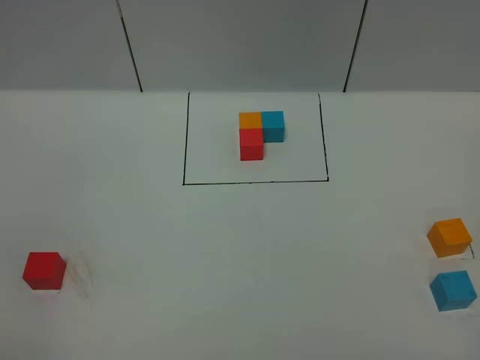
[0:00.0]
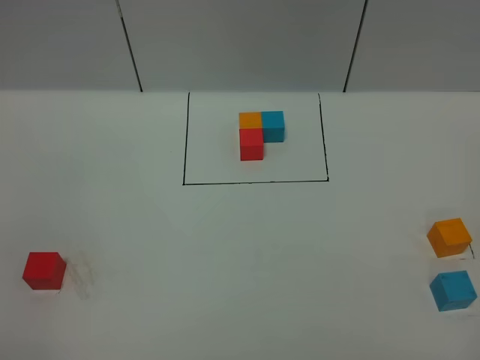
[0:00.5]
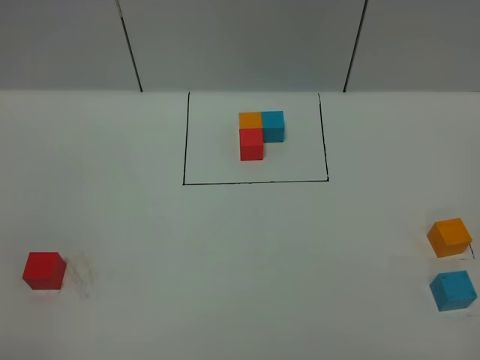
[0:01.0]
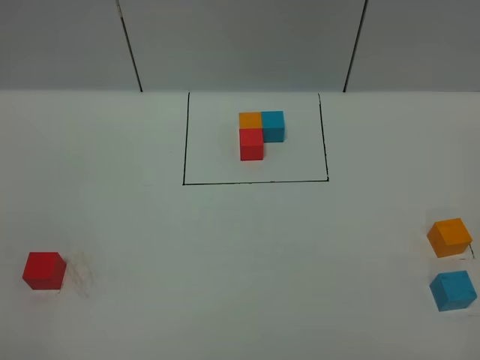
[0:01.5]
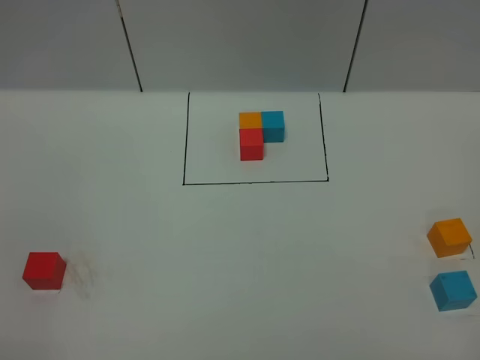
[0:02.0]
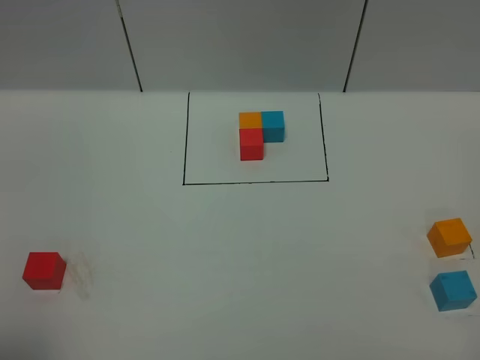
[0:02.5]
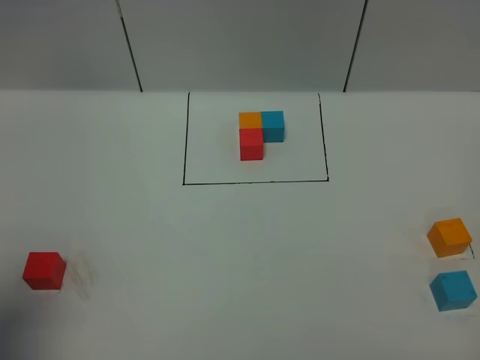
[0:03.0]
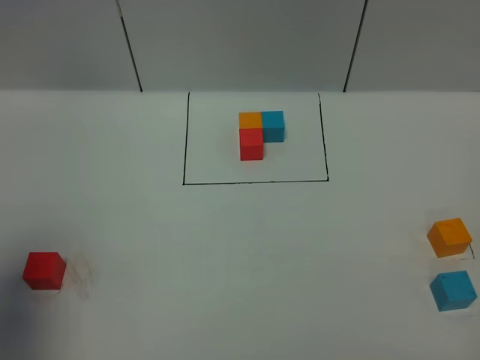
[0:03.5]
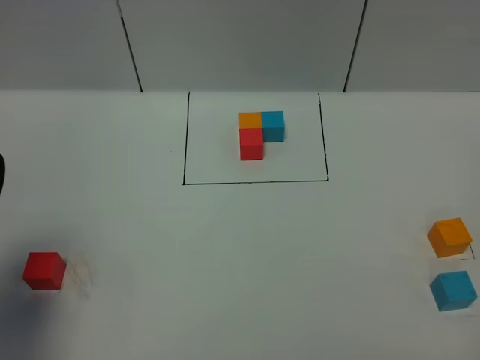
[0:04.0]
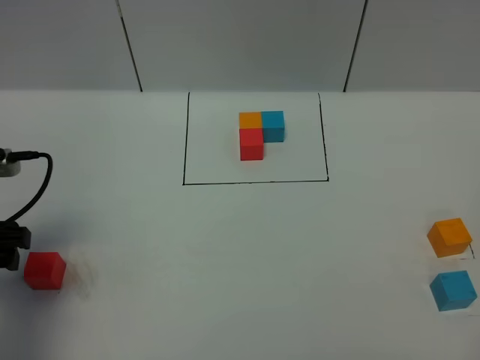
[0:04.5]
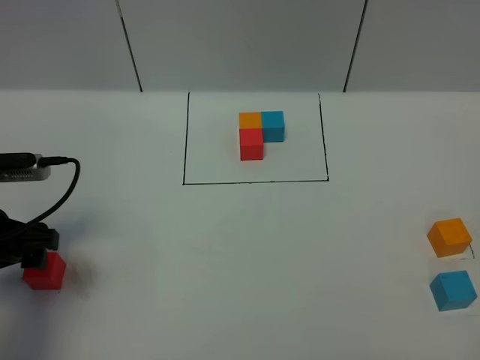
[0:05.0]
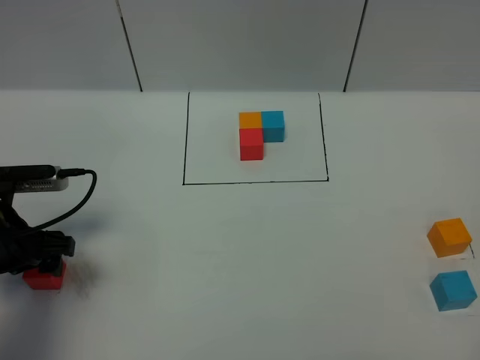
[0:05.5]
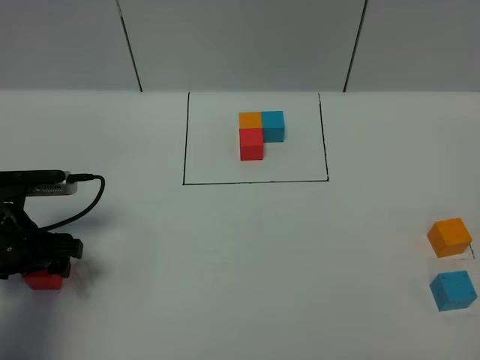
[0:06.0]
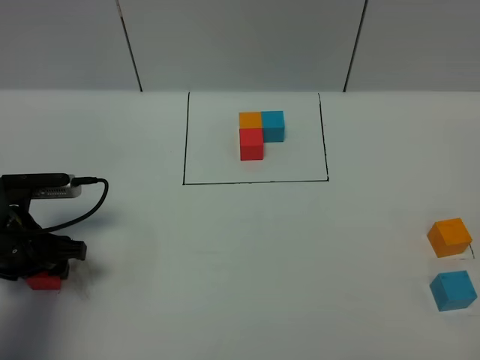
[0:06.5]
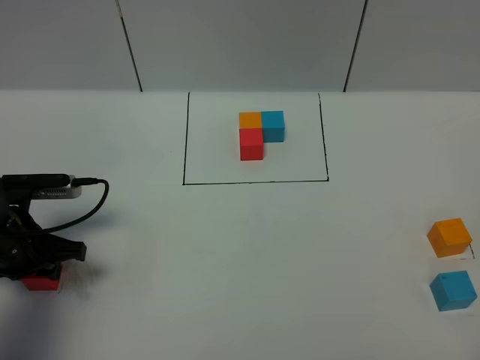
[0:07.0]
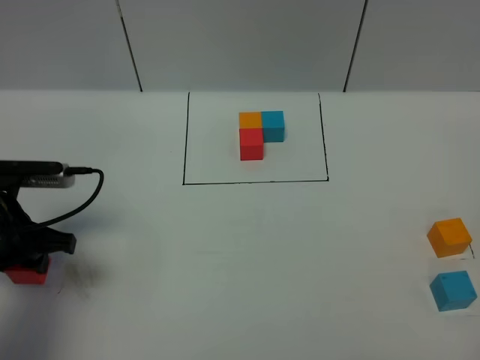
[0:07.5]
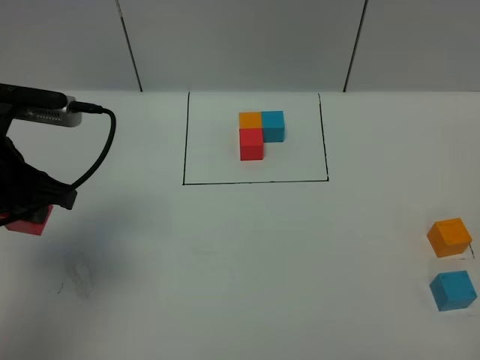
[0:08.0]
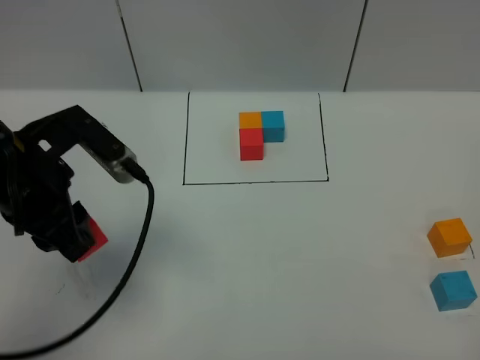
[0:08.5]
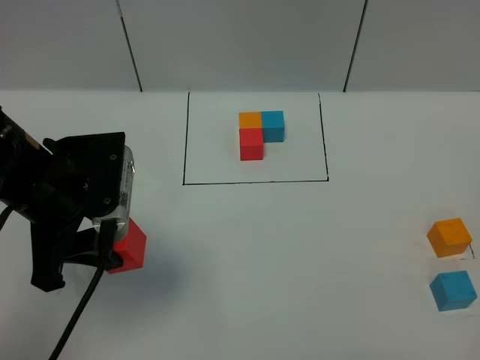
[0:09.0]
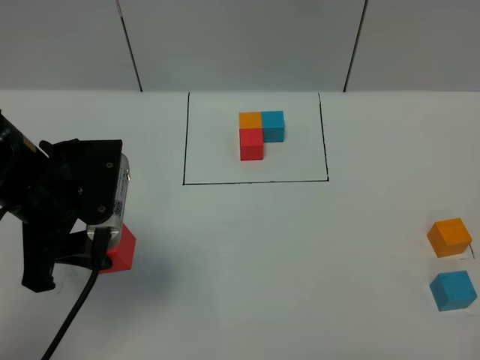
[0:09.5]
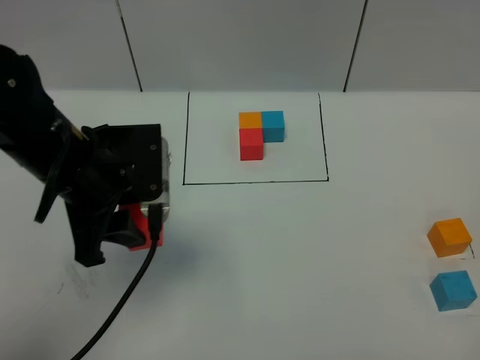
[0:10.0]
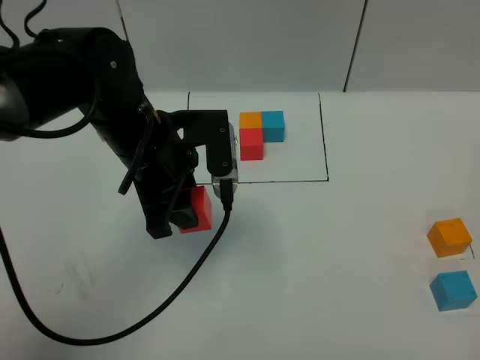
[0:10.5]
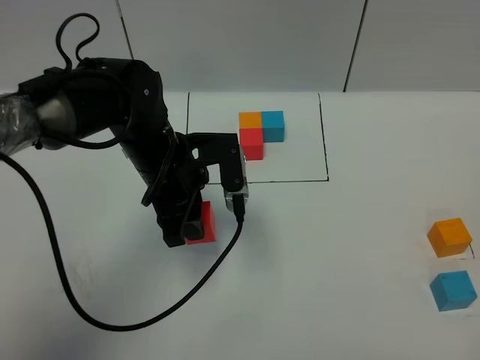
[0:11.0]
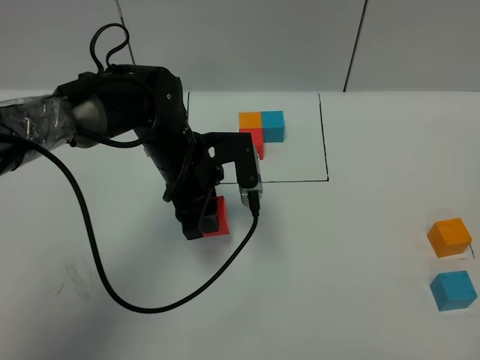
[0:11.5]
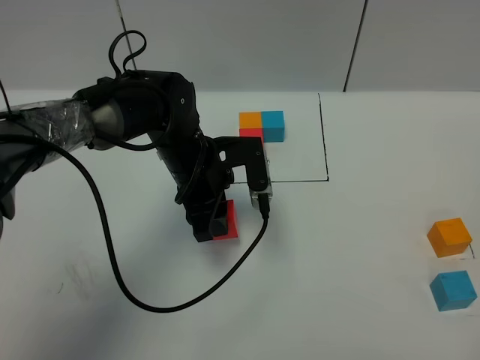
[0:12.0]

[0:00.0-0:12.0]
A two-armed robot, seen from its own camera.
Task of the whole recording: According to the building block template in front, assemble the scattered blocks together.
0:02.0 to 0:04.0: The left gripper moves forward, some 20 cm.
0:04.0 to 0:06.0: The left gripper heads downward and forward, covering roughly 15 cm.
0:06.0 to 0:08.0: The left gripper is displaced upward by about 15 cm, and closes.
0:08.0 to 0:10.0: The left gripper heads to the right, covering some 10 cm.
0:10.0 to 0:12.0: The left gripper heads downward, to the right and forward, covering approximately 15 cm.

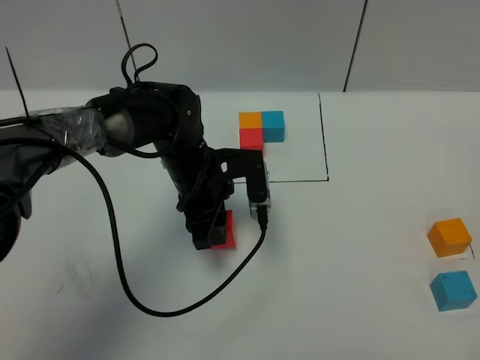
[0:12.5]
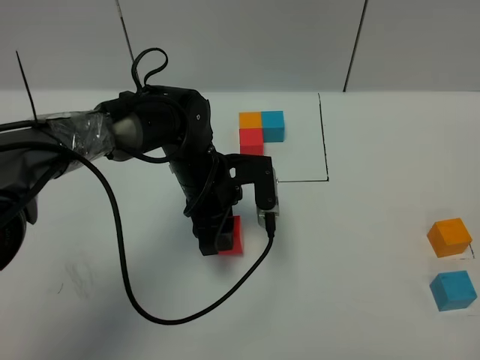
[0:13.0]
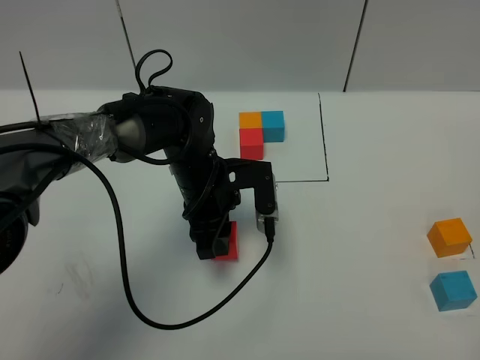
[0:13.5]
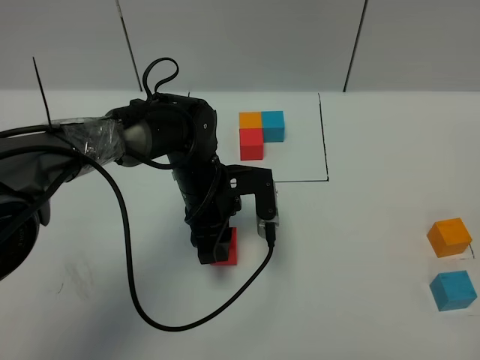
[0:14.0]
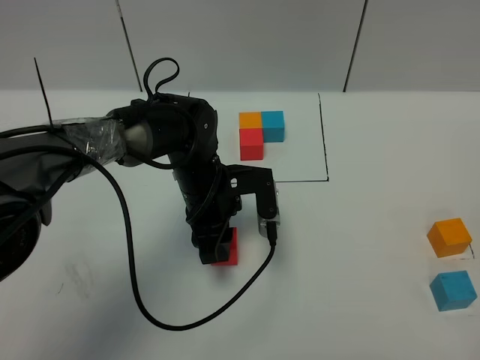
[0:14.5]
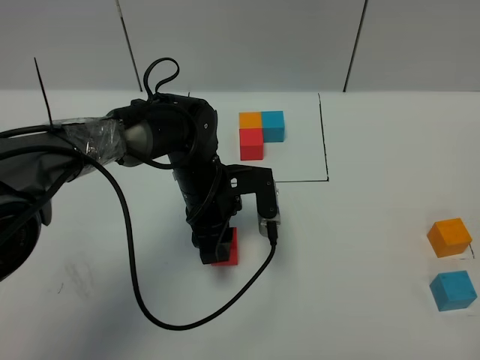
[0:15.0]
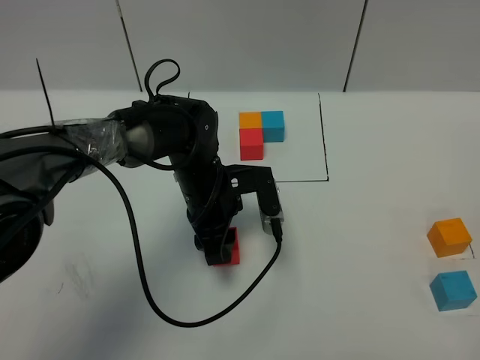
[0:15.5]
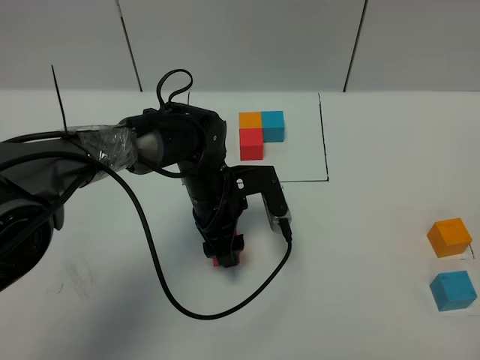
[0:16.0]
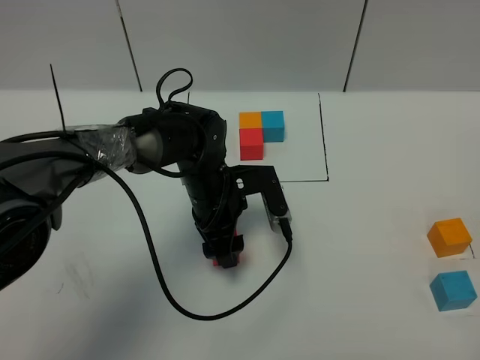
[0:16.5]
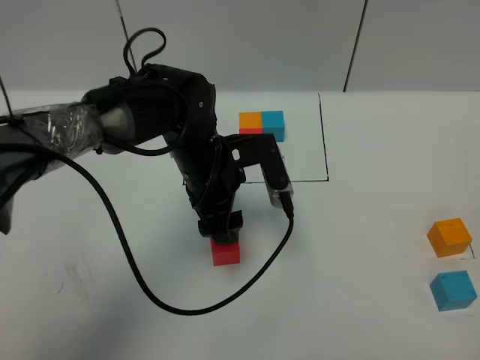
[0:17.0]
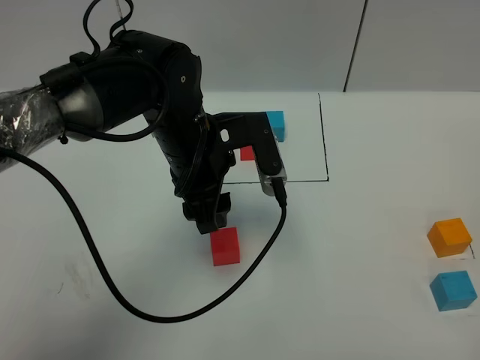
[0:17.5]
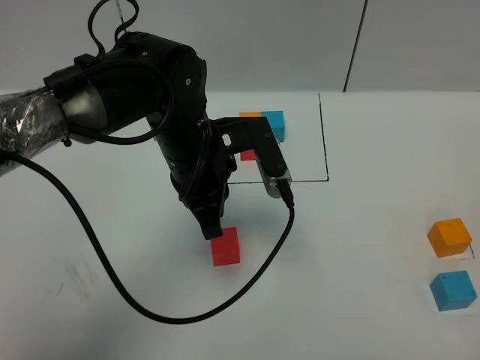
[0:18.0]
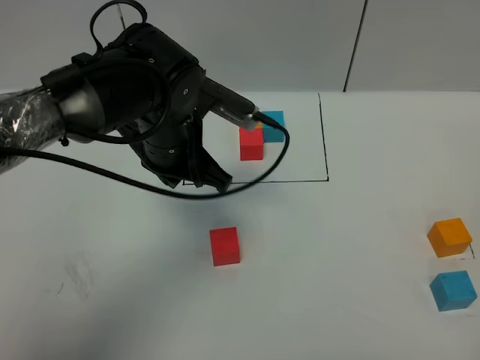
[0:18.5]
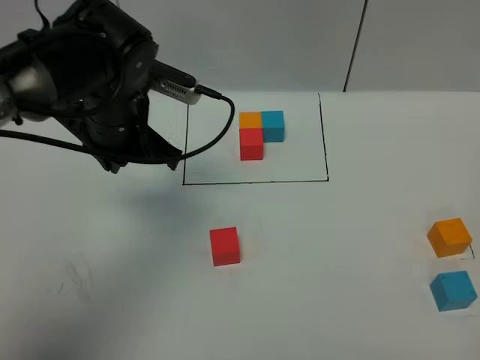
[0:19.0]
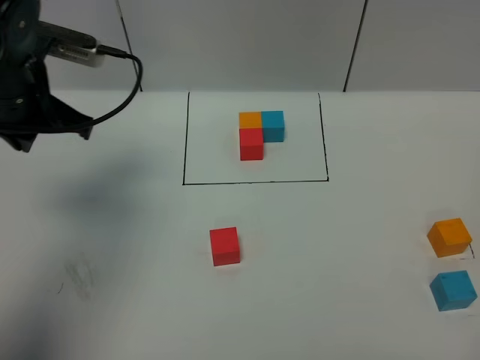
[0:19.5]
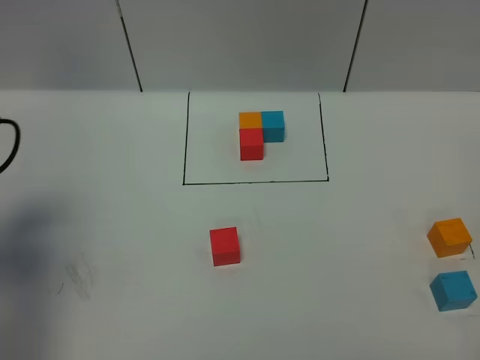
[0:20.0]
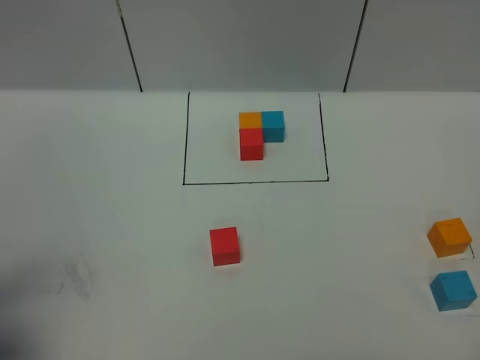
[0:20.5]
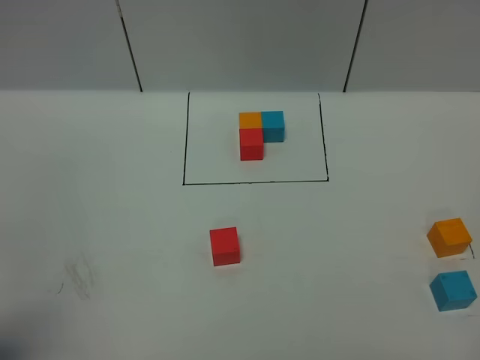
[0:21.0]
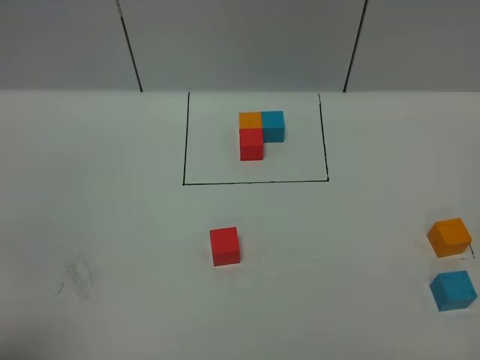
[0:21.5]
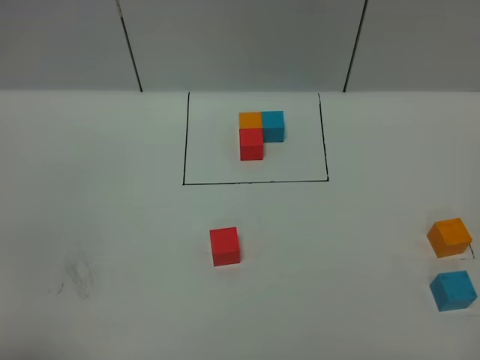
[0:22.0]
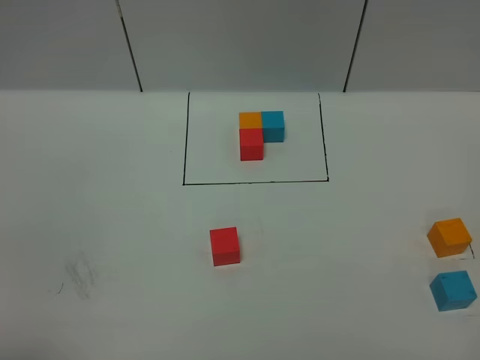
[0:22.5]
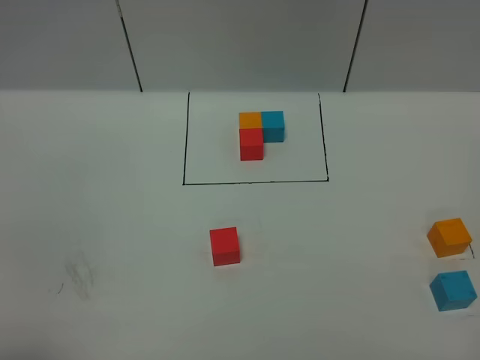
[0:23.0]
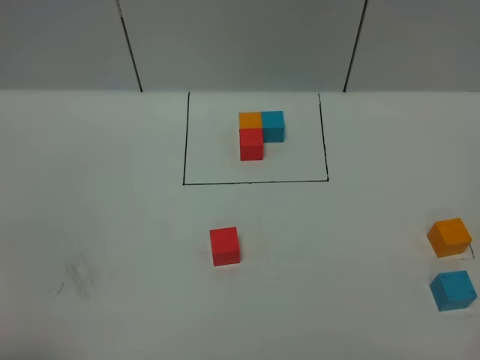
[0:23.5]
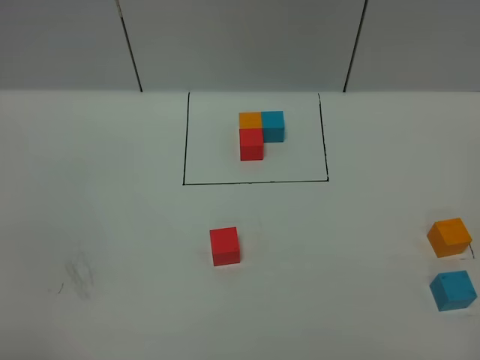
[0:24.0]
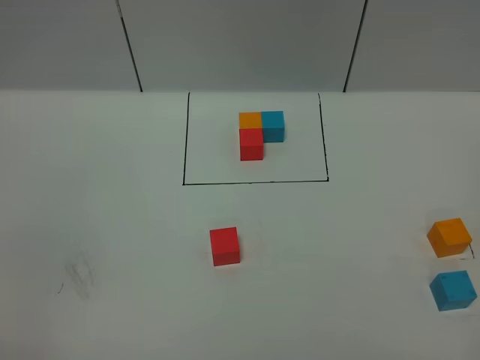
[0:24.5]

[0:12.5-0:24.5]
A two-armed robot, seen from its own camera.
Task of the whole recording: According to the building block template in front, assemble the scattered blocks together.
Step, 0:12.5 to 0:18.5: Put the red cube in the center of the table.
0:12.5 to 0:14.5: There are only small adjustments of the grippers.
0:14.5 to 0:16.5: The left gripper opens up.
0:16.5 to 0:18.5: The left gripper shifts some 10 cm upward, and closes its fingers.
0:18.5 to 0:20.5: The left gripper is displaced to the left and backward by about 35 cm.
0:20.5 to 0:22.5: The left gripper goes some 10 cm backward.

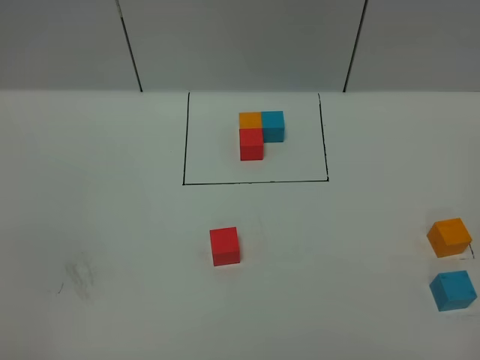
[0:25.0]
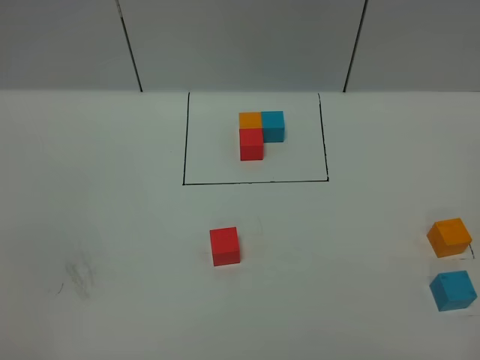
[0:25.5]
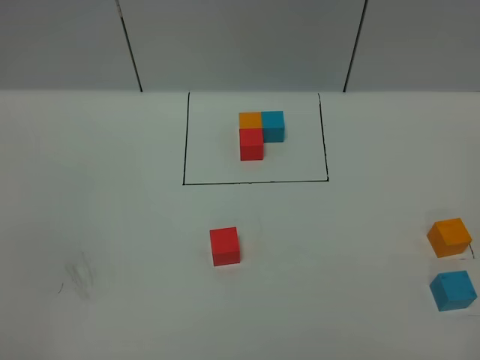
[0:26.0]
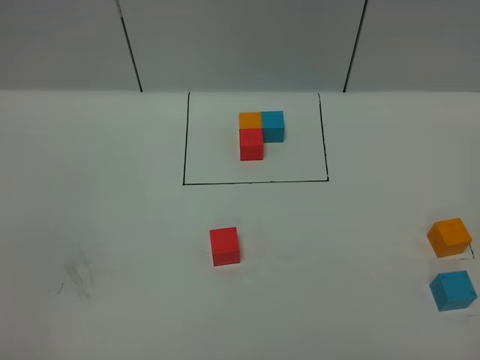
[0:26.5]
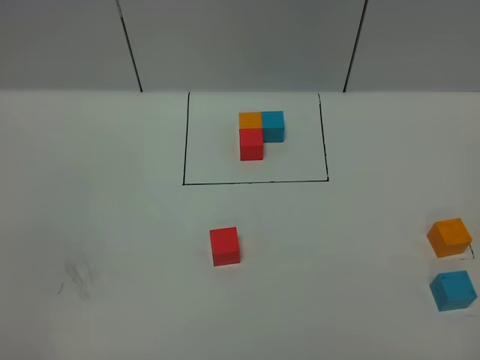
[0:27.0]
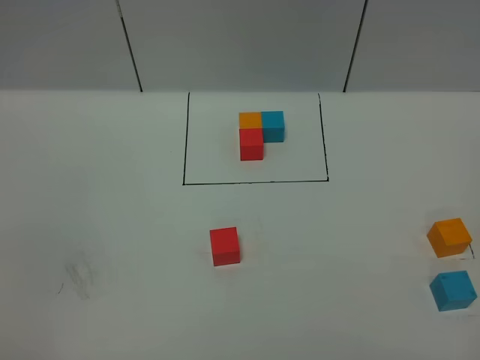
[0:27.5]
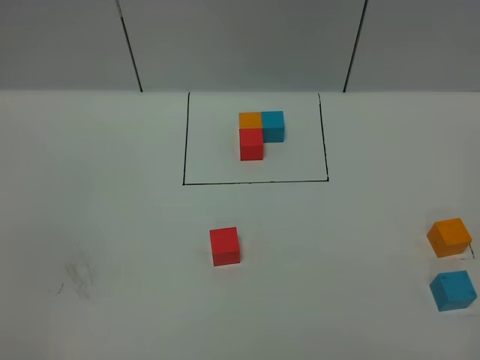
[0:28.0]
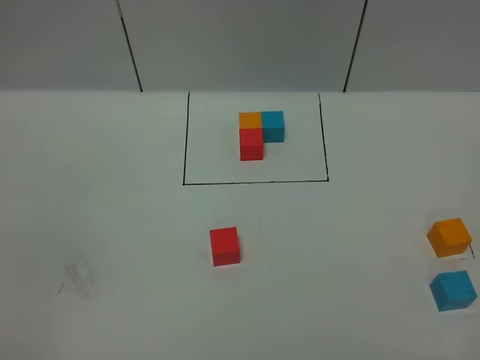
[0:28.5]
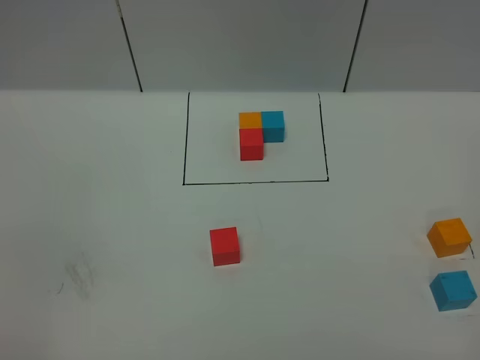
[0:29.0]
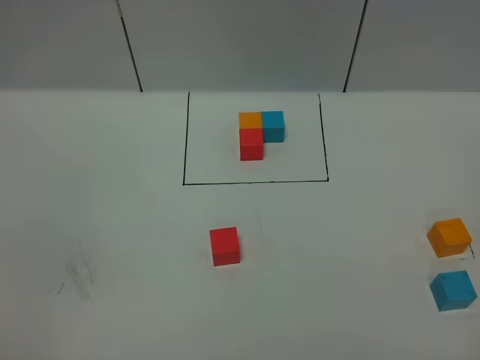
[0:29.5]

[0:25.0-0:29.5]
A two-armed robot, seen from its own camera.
Task of the whole recording: According to the building block template in front, assemble the scattered blocks together.
0:25.0 to 0:27.0: The two grippers keep their place.
